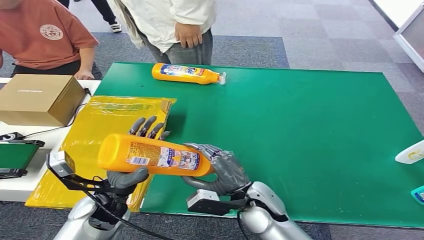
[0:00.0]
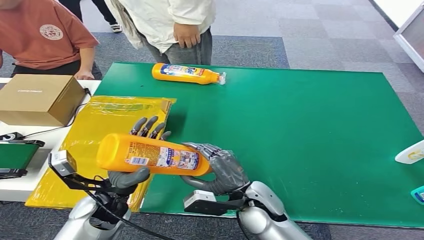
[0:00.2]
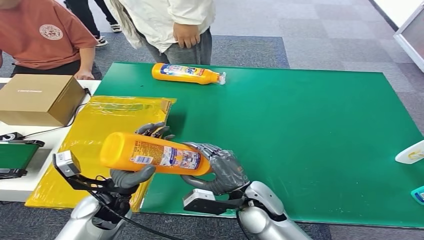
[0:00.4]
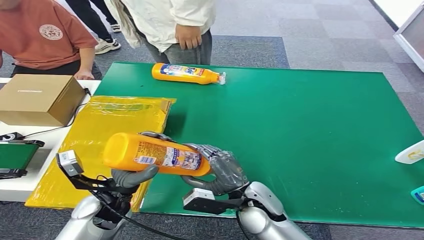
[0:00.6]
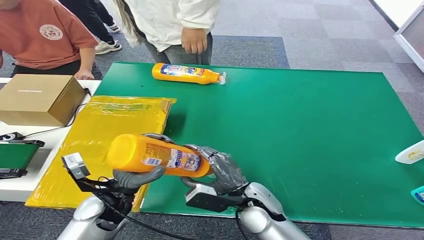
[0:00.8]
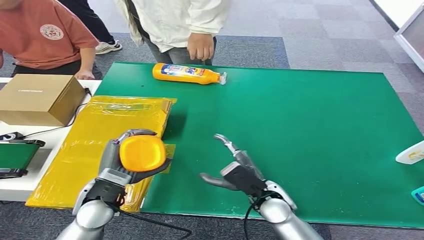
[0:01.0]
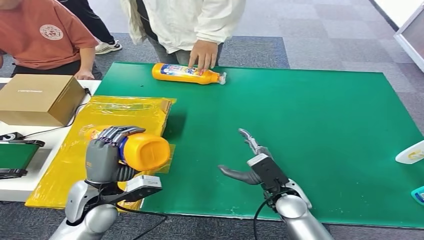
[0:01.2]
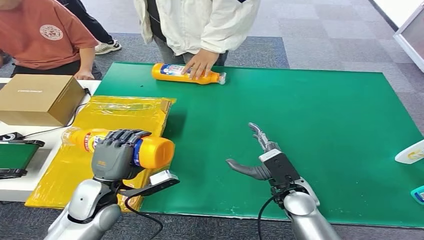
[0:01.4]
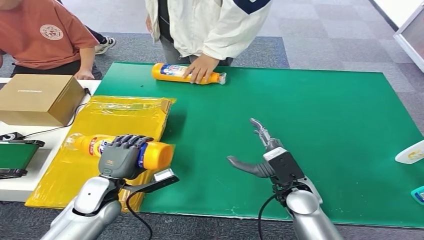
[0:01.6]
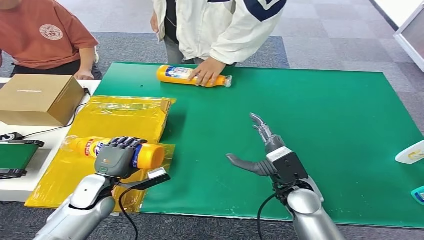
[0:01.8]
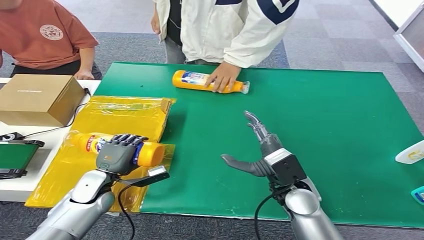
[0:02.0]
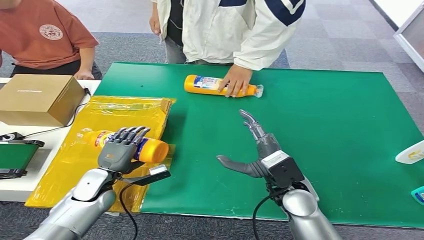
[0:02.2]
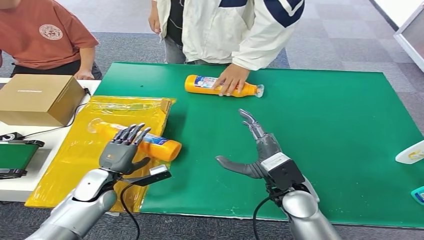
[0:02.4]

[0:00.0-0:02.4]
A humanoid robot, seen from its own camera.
Step, 0:00.0 to 0:02.4: Turn the bottle to the front side.
